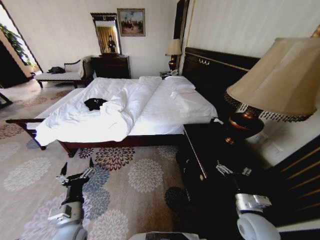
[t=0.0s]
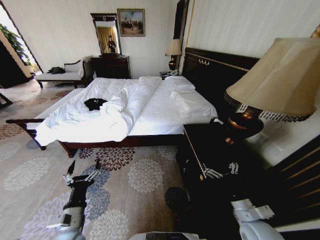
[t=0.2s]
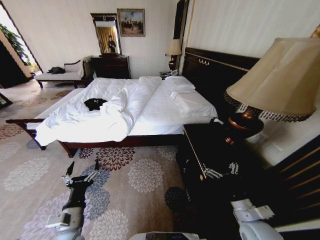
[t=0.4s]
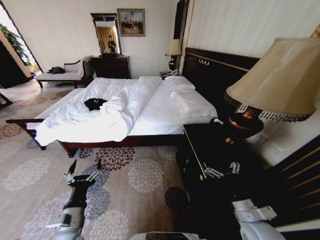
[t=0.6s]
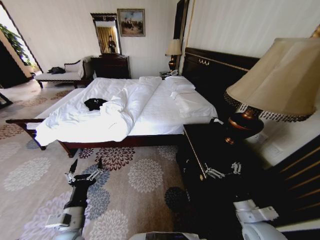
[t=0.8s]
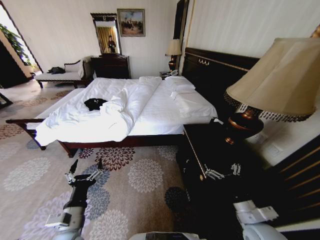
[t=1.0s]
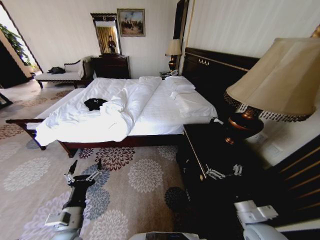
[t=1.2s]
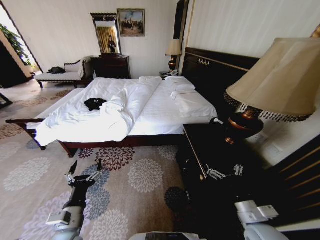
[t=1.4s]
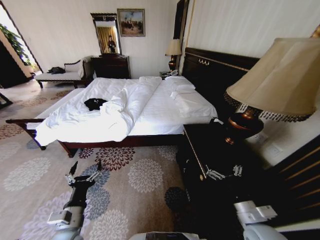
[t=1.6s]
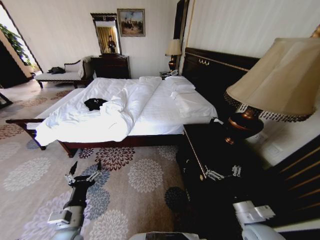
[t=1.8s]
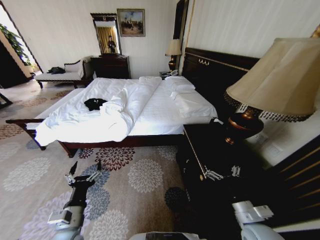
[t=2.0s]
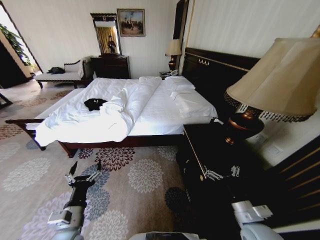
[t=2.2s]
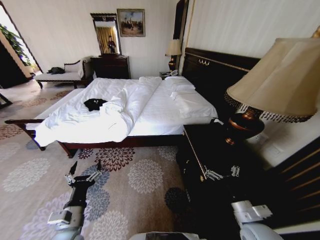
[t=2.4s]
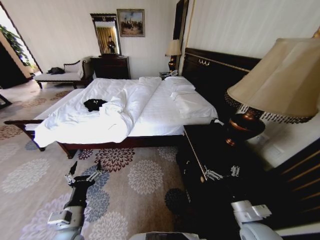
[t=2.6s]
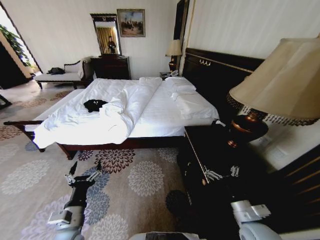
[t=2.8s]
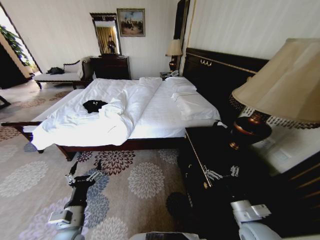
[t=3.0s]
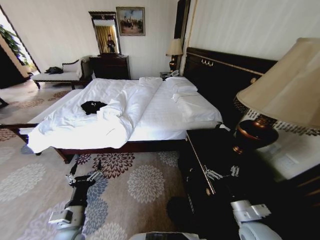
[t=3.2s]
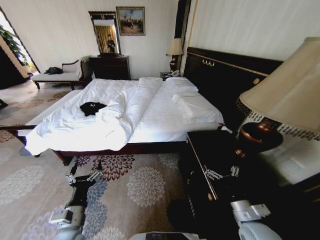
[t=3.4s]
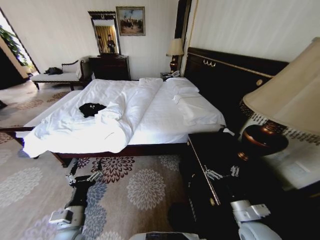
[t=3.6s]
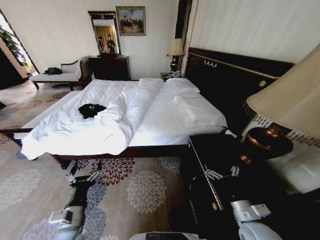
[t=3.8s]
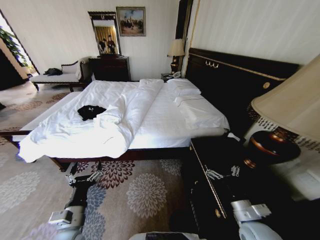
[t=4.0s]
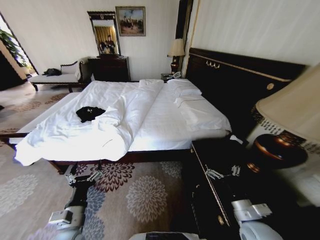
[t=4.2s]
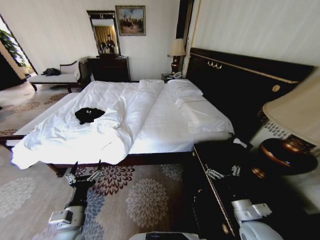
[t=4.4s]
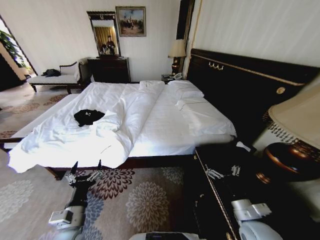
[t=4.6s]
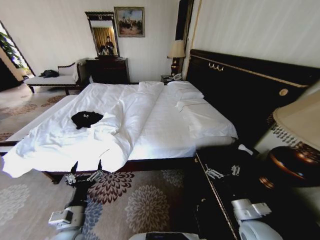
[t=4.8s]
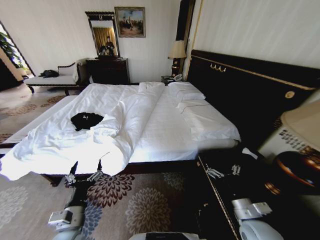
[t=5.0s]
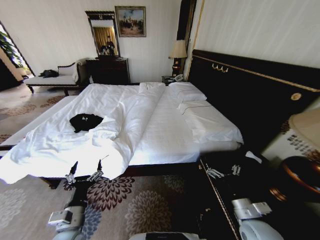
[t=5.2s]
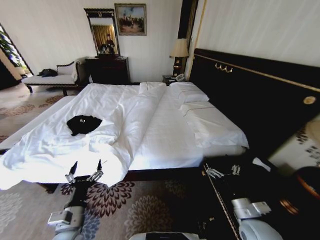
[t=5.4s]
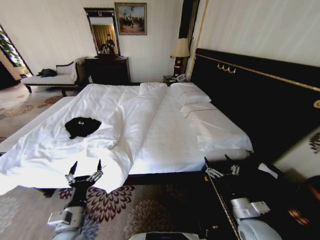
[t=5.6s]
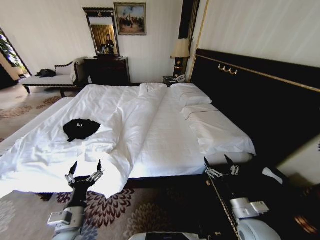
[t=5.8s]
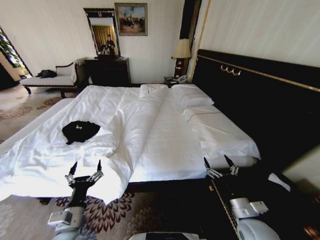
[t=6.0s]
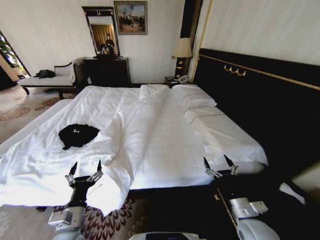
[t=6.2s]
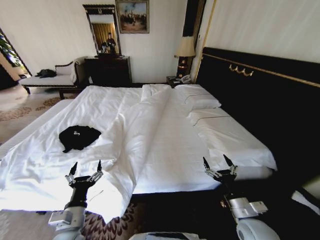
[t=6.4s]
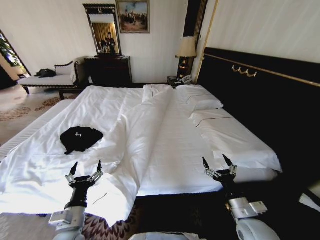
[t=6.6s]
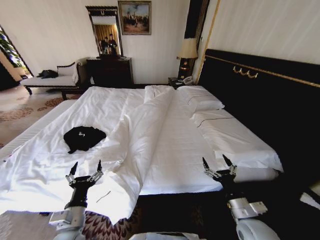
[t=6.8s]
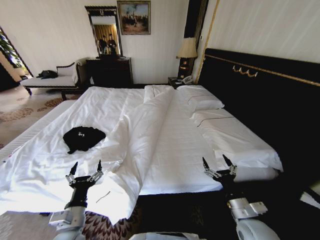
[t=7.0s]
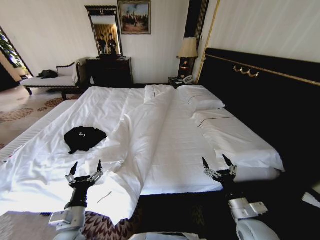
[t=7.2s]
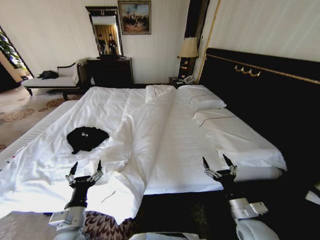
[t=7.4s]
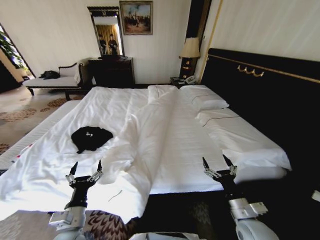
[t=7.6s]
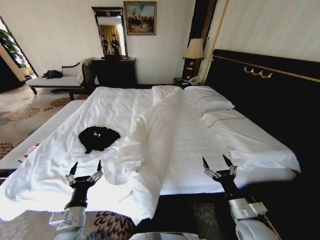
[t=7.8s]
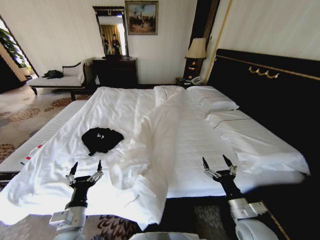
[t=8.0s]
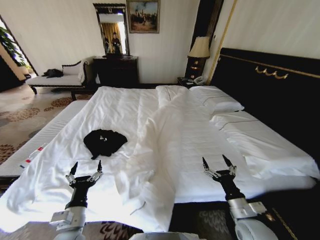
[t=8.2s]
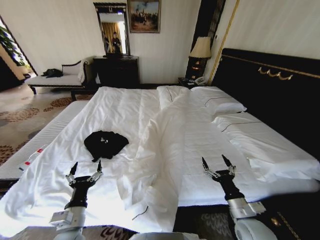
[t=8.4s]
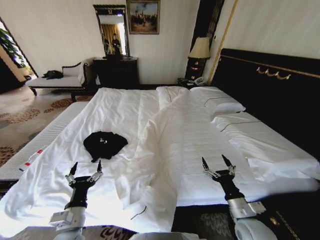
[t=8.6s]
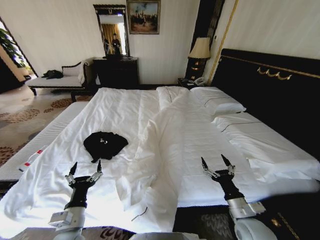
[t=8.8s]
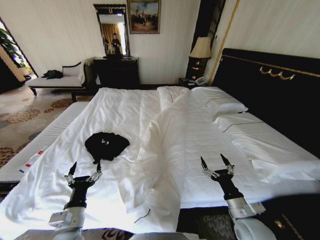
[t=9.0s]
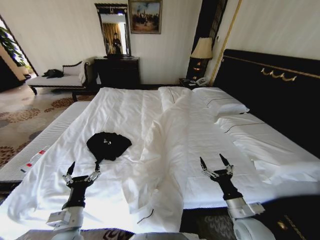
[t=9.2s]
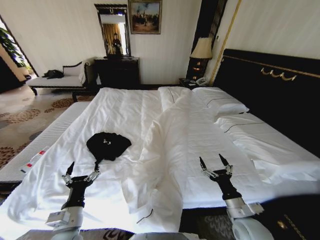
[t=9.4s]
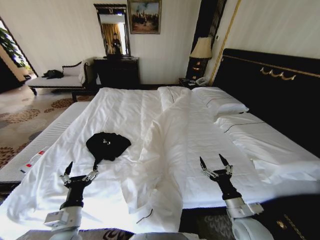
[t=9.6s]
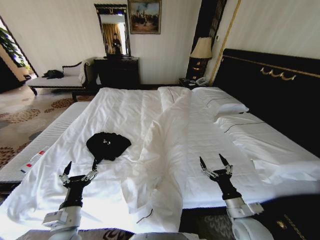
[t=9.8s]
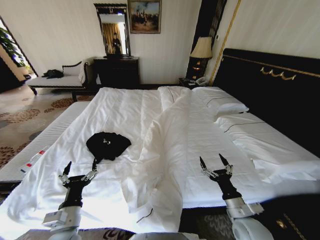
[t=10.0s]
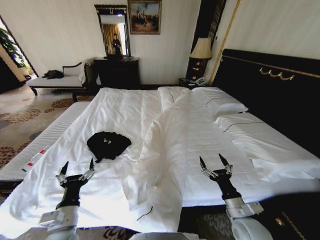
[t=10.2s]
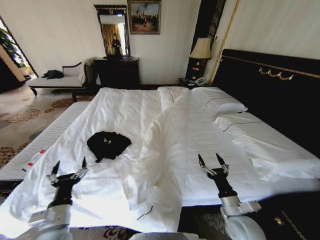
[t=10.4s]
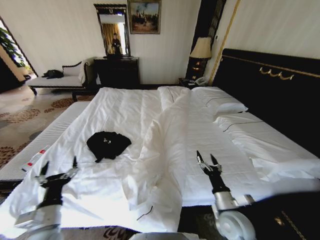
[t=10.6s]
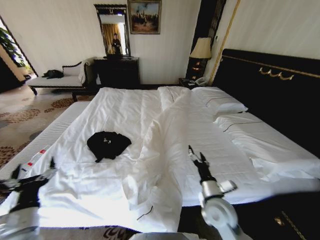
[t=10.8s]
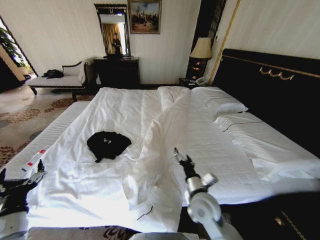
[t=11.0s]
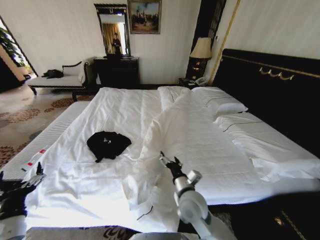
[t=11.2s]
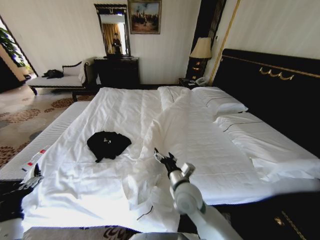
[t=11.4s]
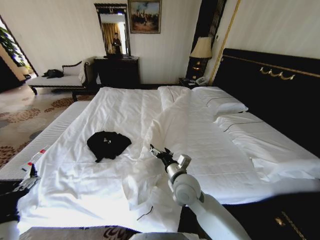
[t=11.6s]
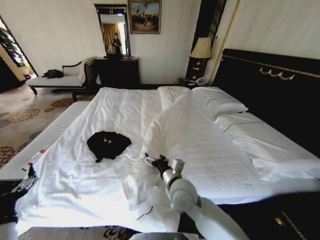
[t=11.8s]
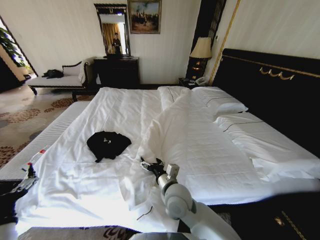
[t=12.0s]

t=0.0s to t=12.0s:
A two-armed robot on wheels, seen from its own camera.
Task of the whole recording: Fold the clothes on the bed.
t=1.6s to t=3.0s: There are only small adjustments of the grippers.
t=9.0s to t=10.4s: The grippers move only a little.
t=10.4s to t=12.0s: The right gripper heads to the left, covering about 20 cm. Meanwhile the left gripper heads to the left, covering some 5 cm.

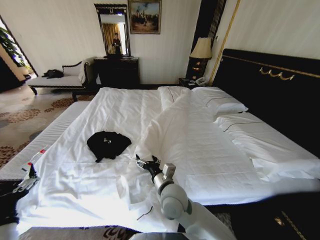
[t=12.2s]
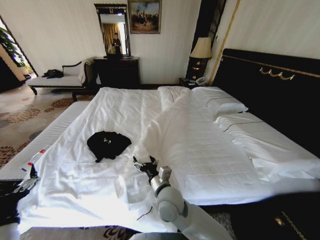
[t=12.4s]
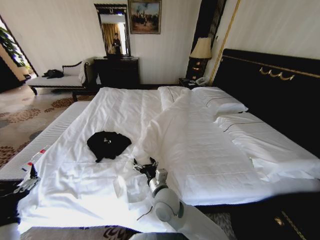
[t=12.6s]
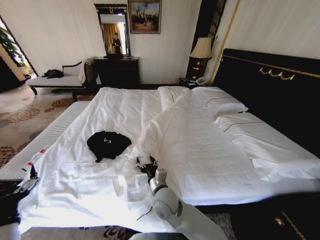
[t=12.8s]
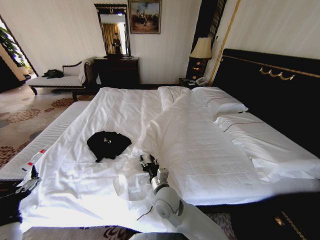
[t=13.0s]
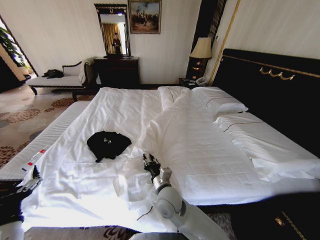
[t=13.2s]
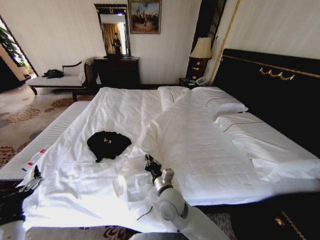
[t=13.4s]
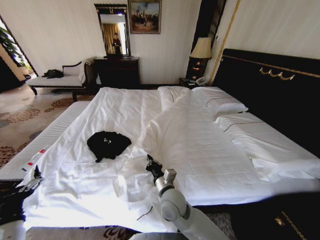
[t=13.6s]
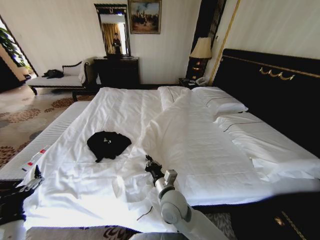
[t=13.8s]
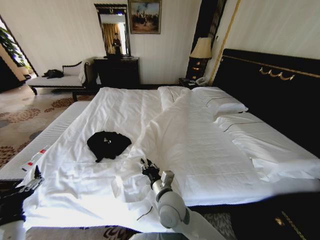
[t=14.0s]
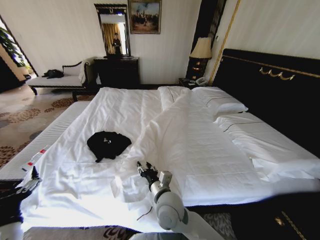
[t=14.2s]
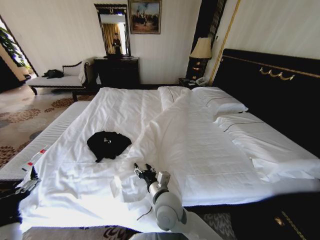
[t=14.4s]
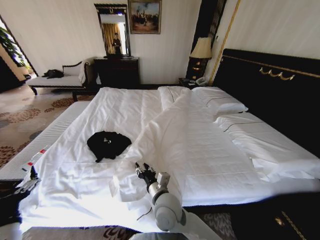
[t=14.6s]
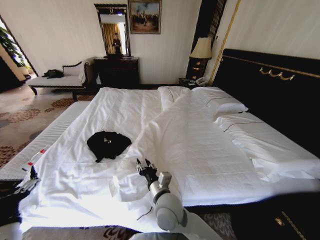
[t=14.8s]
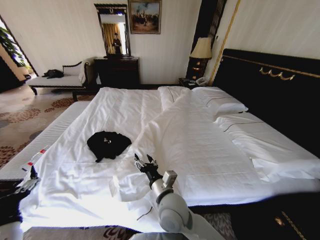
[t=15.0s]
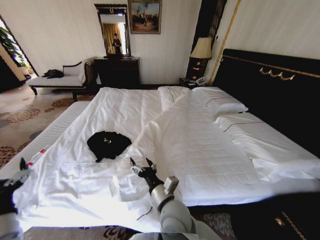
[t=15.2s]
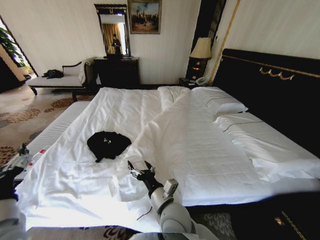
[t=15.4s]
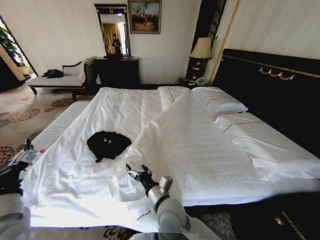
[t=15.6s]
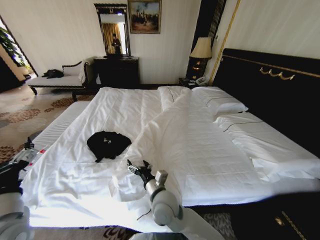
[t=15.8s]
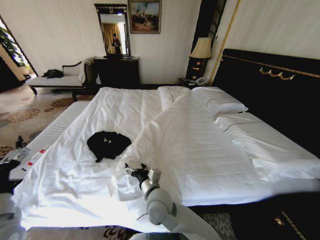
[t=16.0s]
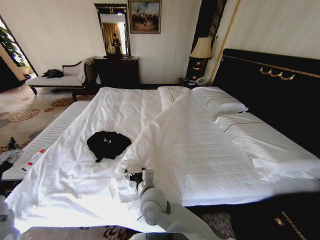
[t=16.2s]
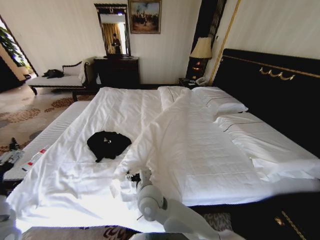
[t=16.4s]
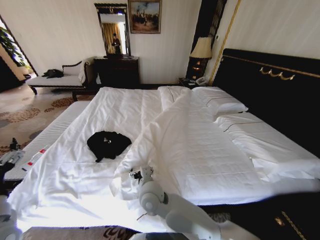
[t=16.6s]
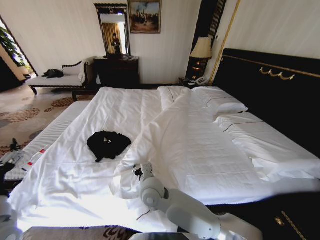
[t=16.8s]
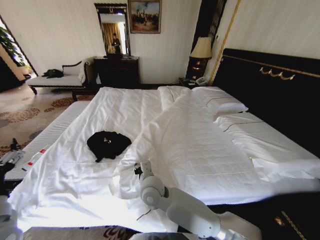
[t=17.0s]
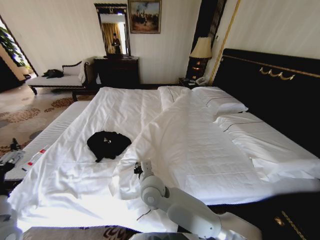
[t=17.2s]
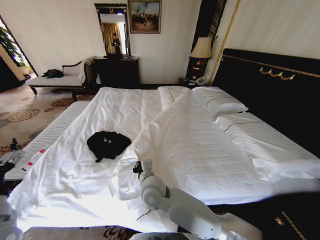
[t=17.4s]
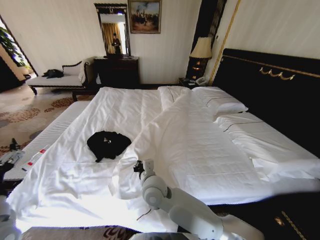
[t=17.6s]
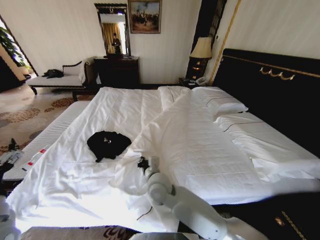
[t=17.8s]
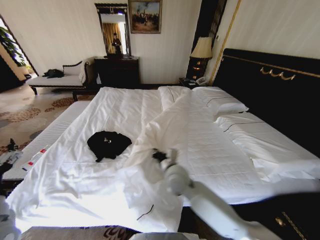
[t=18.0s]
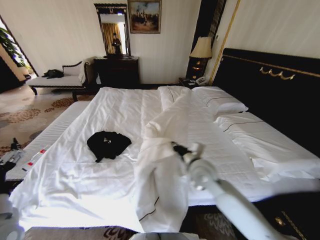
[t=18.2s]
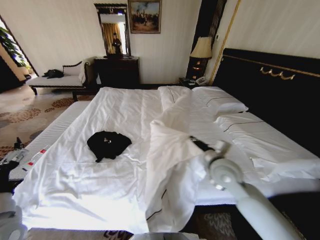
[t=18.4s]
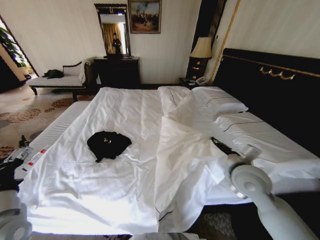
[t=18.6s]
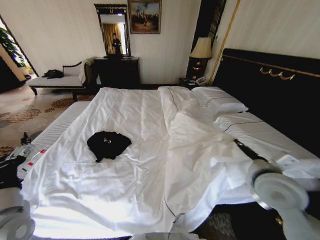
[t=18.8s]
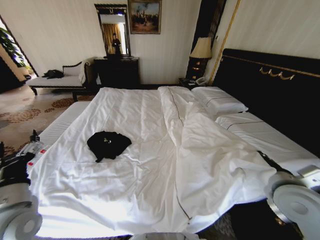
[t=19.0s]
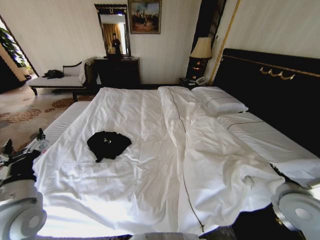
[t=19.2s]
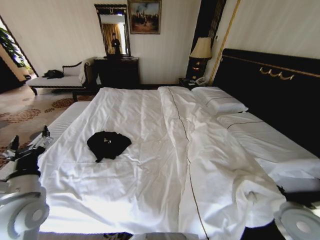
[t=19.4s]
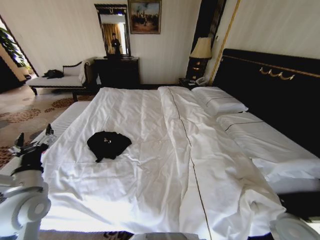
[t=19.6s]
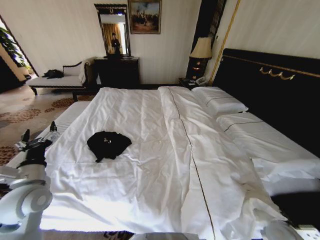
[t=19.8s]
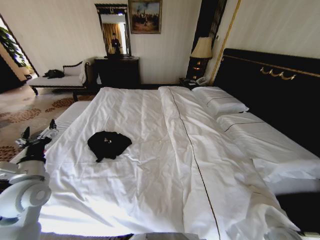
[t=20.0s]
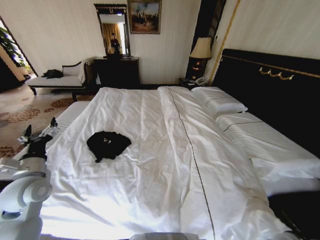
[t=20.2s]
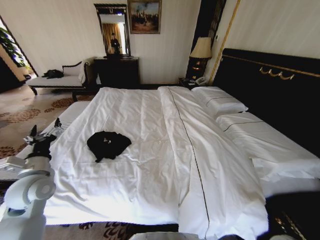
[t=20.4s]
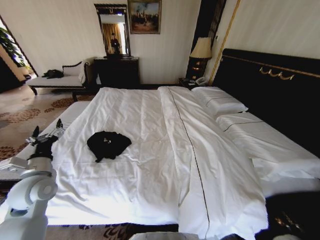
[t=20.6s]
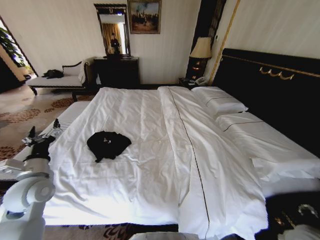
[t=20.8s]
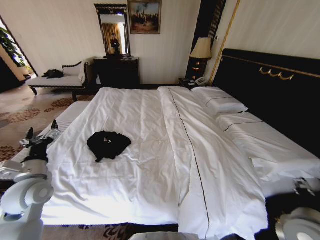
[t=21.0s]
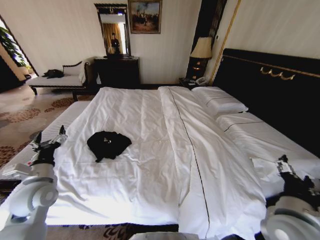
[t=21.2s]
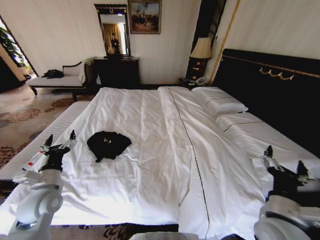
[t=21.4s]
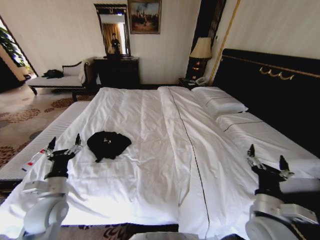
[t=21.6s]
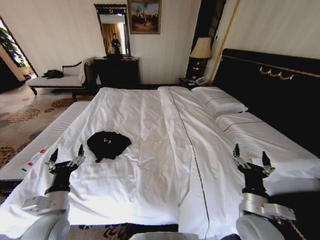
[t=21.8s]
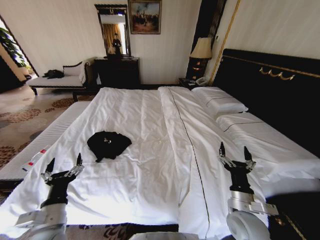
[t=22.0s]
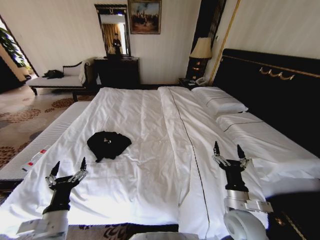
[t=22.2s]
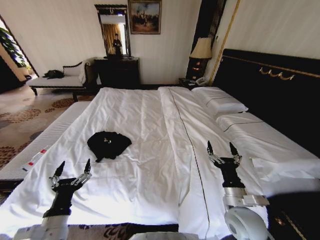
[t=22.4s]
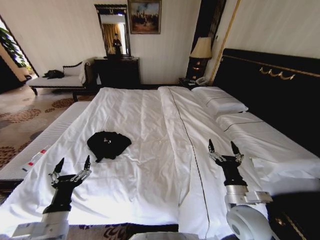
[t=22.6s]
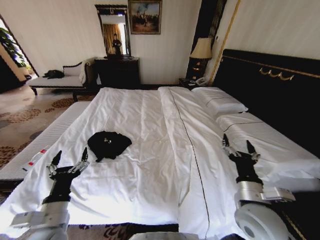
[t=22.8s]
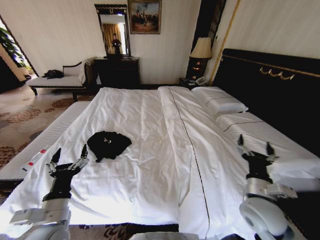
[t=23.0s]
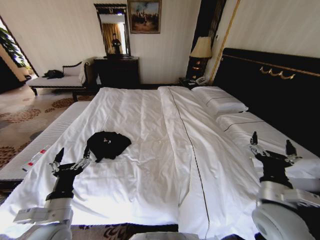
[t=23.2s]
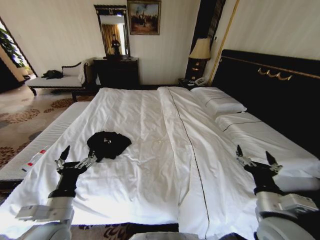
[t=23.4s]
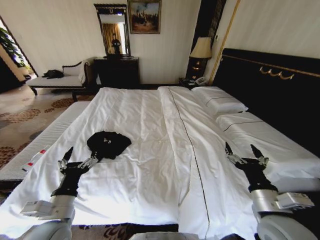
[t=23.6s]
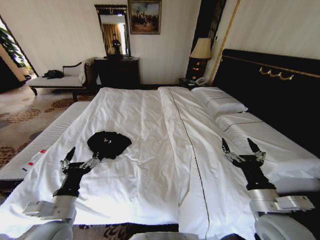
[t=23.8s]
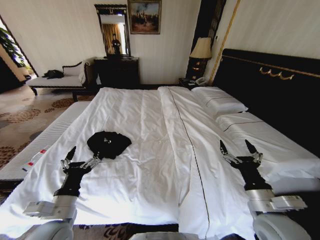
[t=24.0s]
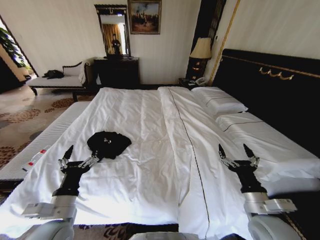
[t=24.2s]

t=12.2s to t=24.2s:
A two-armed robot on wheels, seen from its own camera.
Task of the whole recording: Fold the clothes on the bed.
t=12.2s to t=13.8s: The right gripper closes.
t=13.8s to t=15.2s: The right gripper shifts by some 5 cm, and opens.
t=15.2s to t=16.6s: The left gripper moves upward, roughly 5 cm. The right gripper heads to the left and forward, covering some 10 cm.
t=16.6s to t=18.2s: The right gripper shifts approximately 20 cm to the right, and closes its fingers.
t=18.2s to t=19.8s: The left gripper moves forward, approximately 10 cm; the right gripper heads to the right, backward and downward, covering approximately 35 cm.
t=19.8s to t=21.2s: The right gripper goes approximately 20 cm upward and to the left, and opens up.
t=21.2s to t=22.6s: The right gripper is displaced to the left and downward by roughly 10 cm; the left gripper heads backward and to the right, covering some 15 cm.
t=22.6s to t=24.2s: The right gripper ends up approximately 5 cm from where it was.
